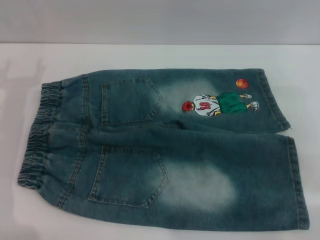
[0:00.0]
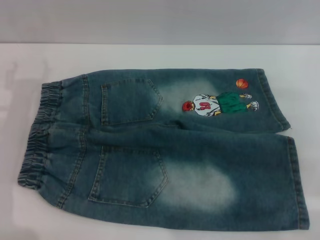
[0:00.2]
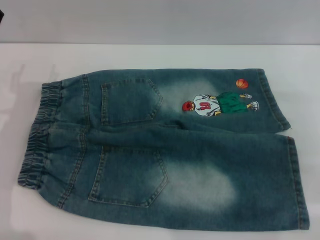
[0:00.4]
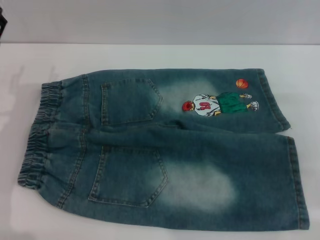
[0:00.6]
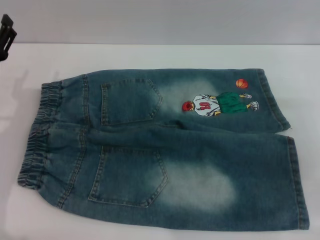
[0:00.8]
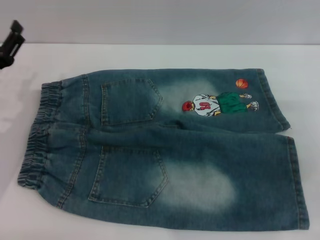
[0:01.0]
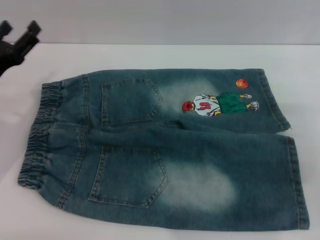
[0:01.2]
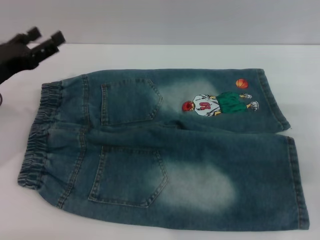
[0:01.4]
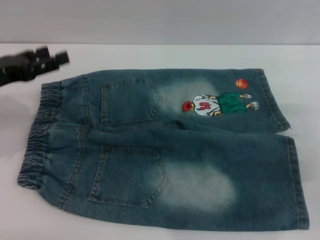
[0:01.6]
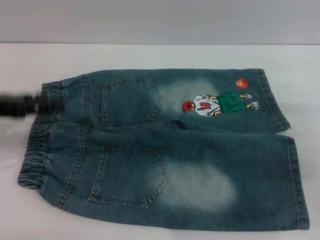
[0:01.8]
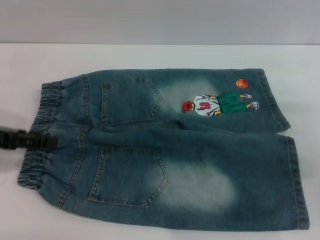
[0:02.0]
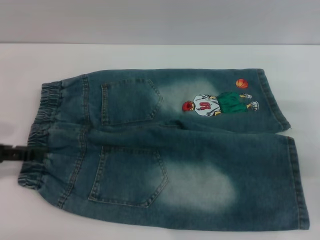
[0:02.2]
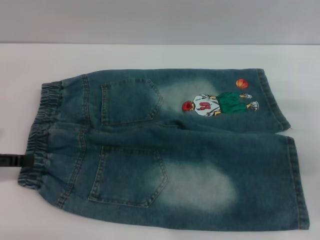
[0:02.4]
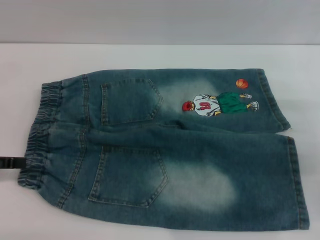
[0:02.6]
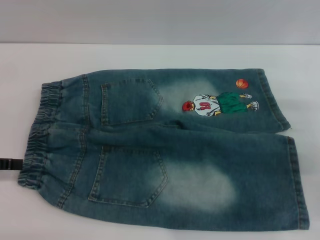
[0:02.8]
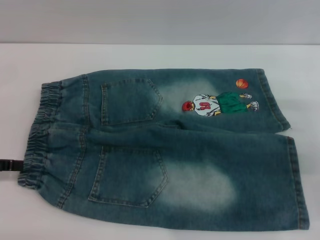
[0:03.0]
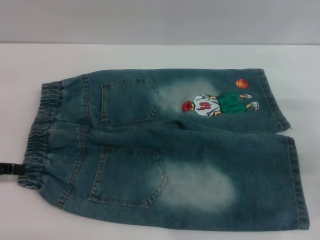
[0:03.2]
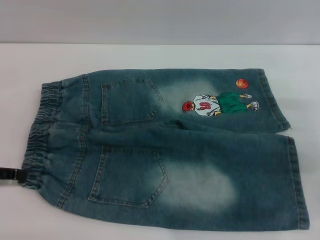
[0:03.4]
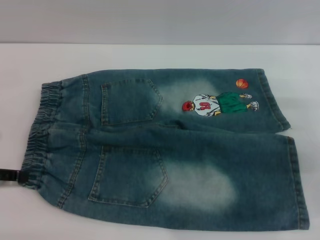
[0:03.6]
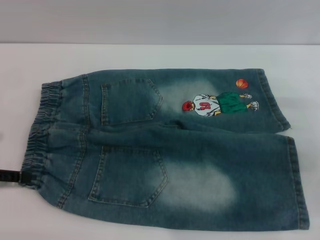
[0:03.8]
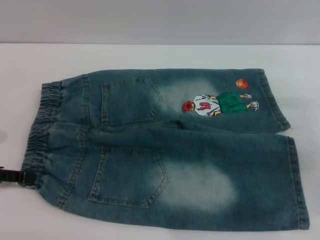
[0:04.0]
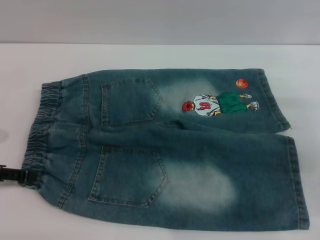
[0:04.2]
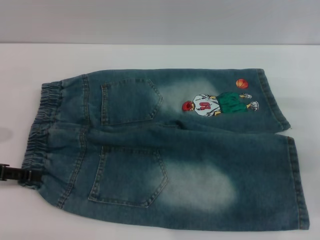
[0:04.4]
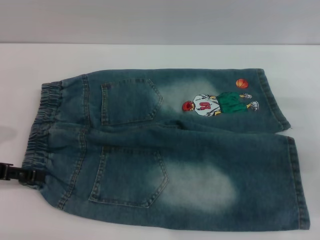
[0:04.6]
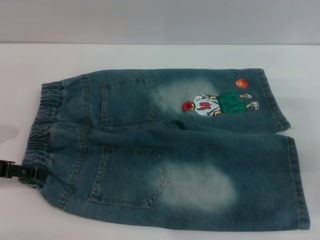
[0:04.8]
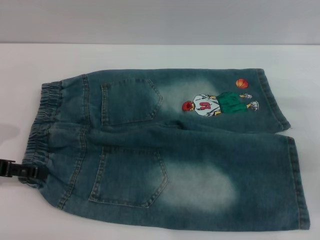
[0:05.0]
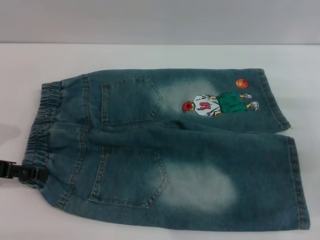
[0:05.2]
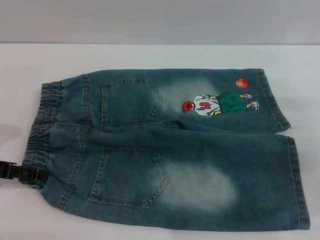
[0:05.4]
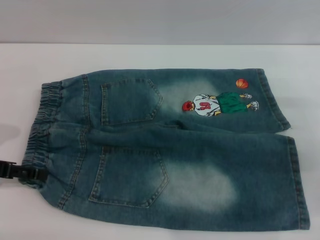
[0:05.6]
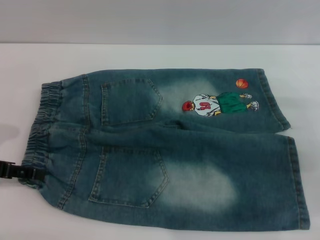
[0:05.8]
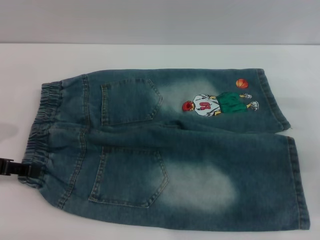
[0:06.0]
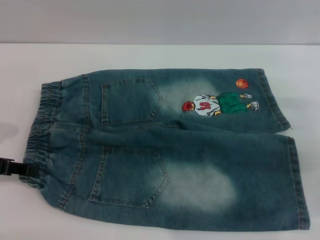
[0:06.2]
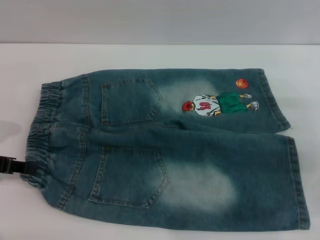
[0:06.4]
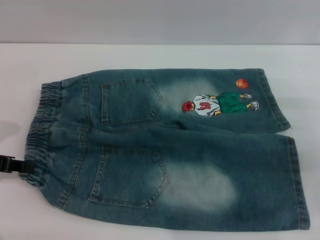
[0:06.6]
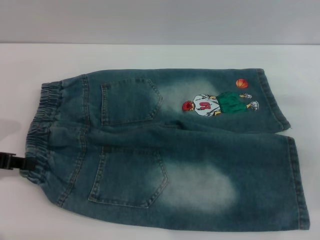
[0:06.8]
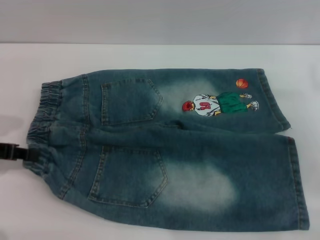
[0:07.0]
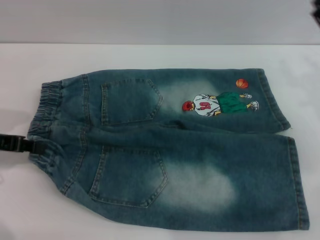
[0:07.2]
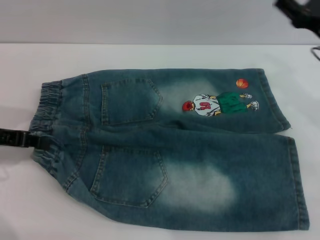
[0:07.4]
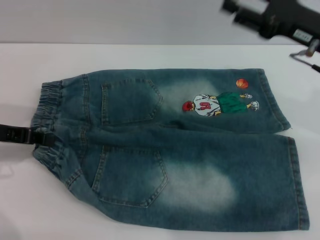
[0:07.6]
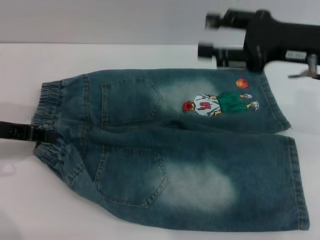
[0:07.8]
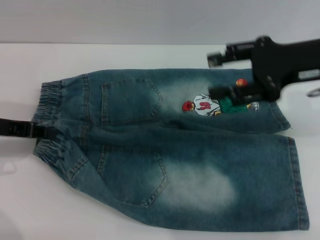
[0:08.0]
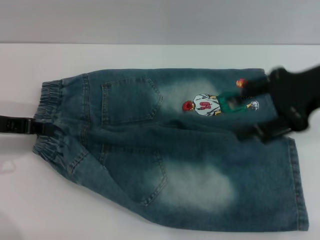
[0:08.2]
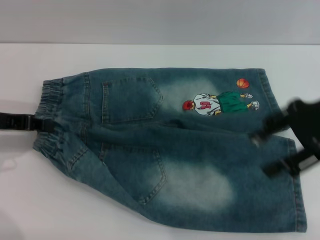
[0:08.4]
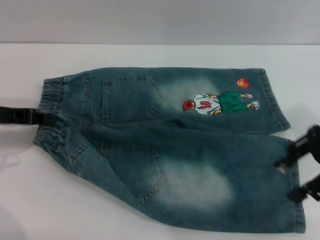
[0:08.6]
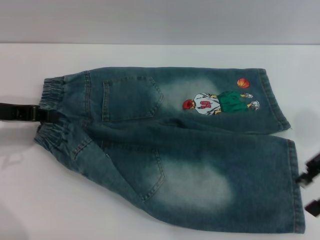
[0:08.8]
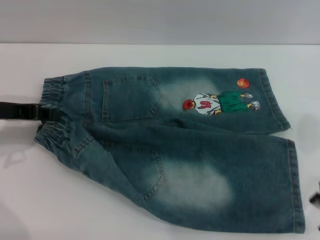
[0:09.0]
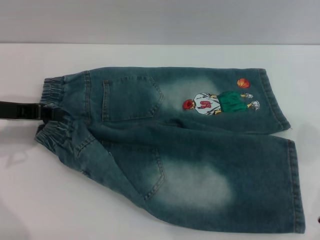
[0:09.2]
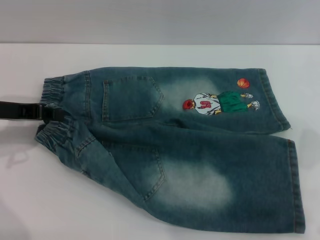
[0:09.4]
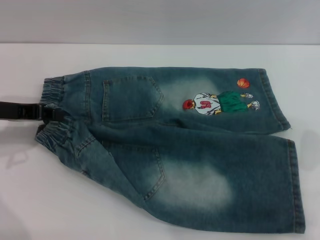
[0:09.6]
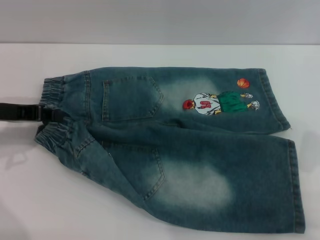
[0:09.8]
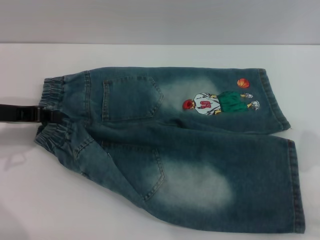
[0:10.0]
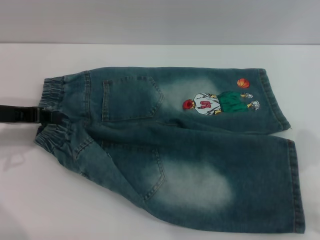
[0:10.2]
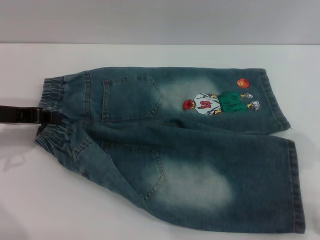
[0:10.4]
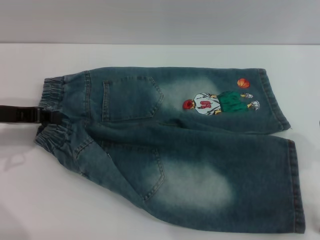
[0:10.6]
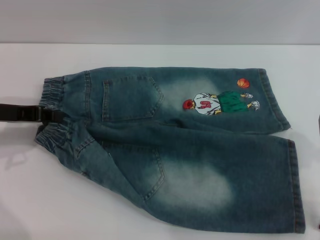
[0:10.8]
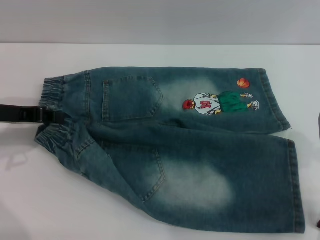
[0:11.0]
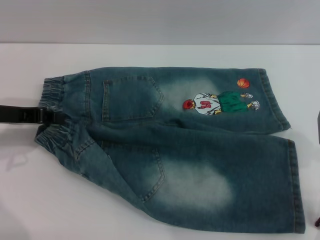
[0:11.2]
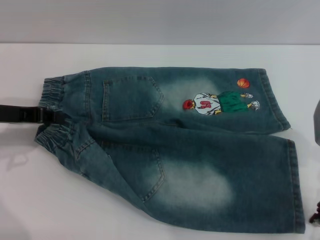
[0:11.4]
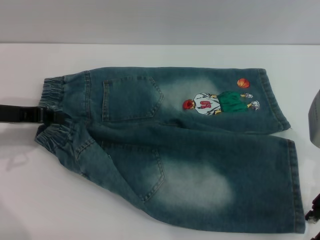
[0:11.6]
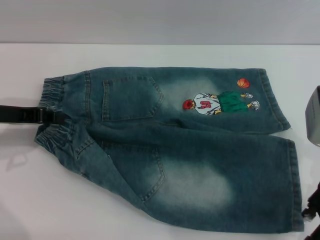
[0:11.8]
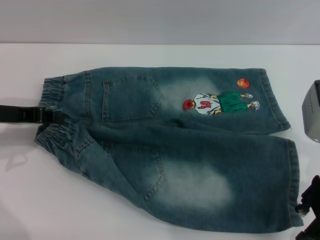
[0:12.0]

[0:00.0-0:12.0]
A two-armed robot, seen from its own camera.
0:01.6 to 0:03.0: The left gripper goes some 10 cm to the left and backward.
0:04.4 to 0:06.0: Neither gripper changes place.
0:06.0 to 0:07.6: The right gripper moves upward, to the left and forward, roughly 15 cm. The left gripper closes.
0:07.6 to 0:09.0: The right gripper moves backward, about 5 cm.
0:09.0 to 0:10.4: The right gripper shifts by roughly 5 cm.
0:10.4 to 0:12.0: The grippers move only a little.

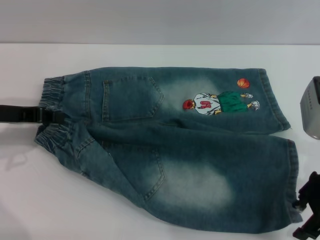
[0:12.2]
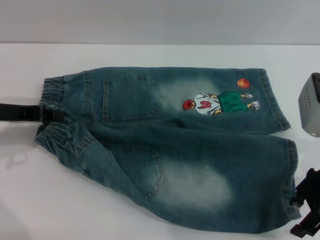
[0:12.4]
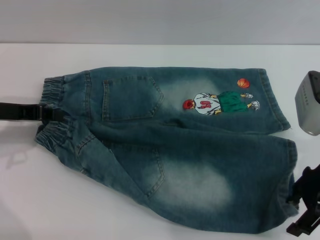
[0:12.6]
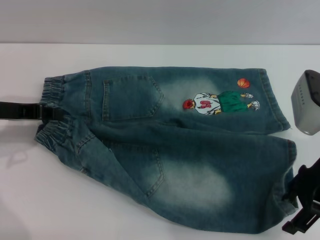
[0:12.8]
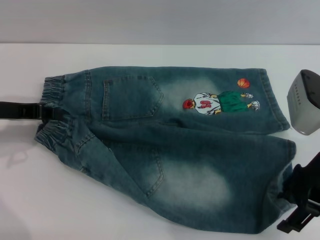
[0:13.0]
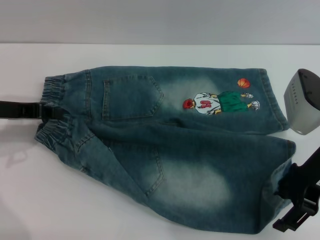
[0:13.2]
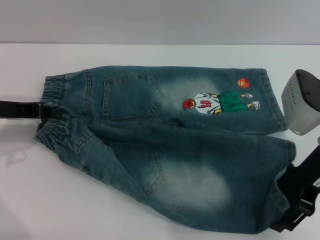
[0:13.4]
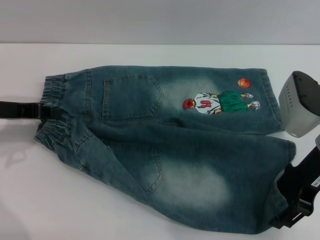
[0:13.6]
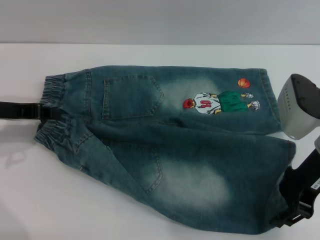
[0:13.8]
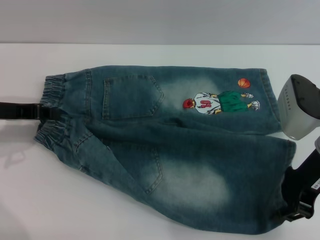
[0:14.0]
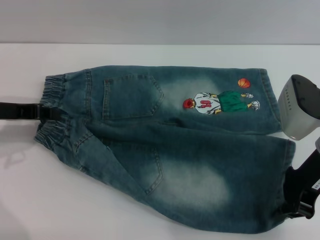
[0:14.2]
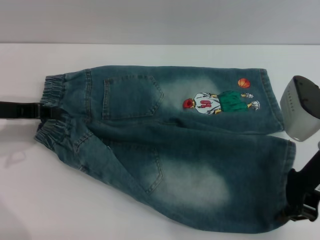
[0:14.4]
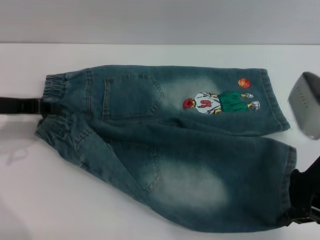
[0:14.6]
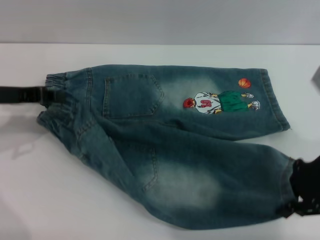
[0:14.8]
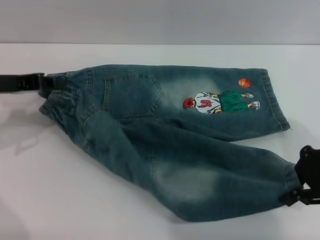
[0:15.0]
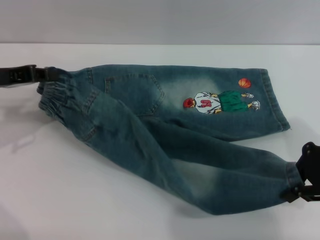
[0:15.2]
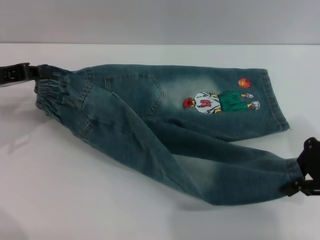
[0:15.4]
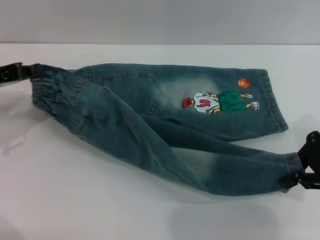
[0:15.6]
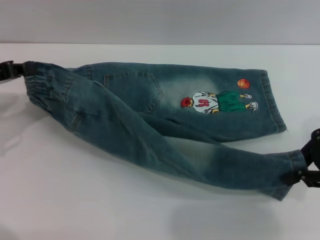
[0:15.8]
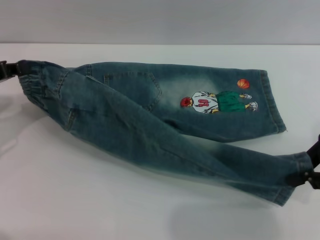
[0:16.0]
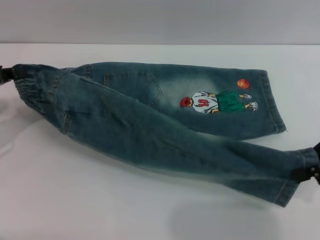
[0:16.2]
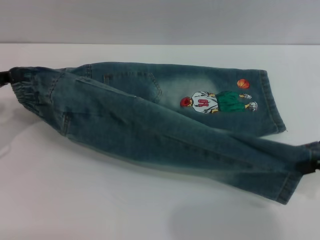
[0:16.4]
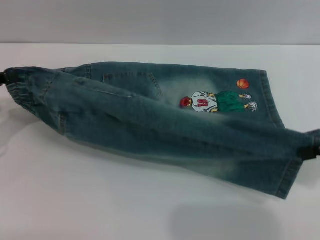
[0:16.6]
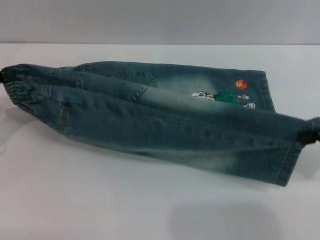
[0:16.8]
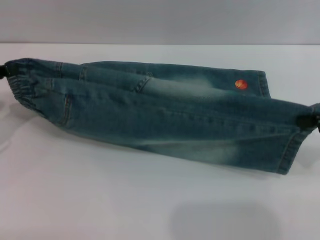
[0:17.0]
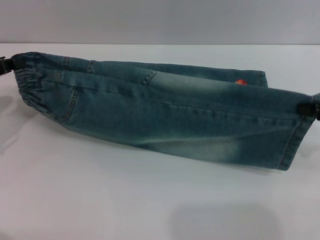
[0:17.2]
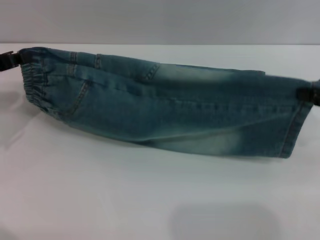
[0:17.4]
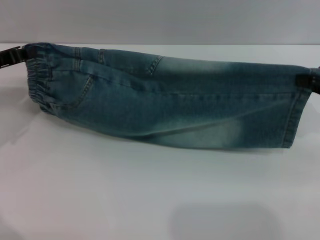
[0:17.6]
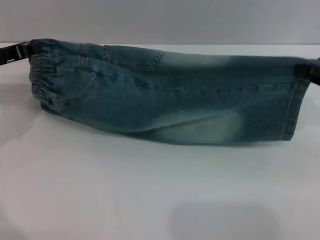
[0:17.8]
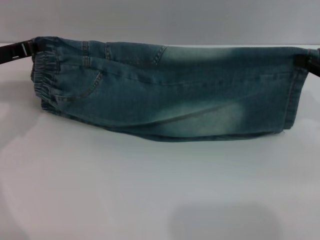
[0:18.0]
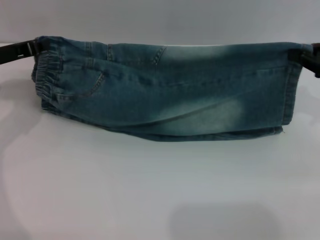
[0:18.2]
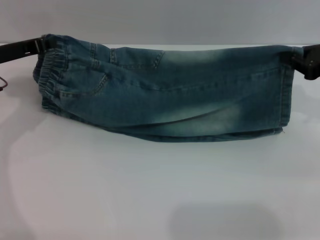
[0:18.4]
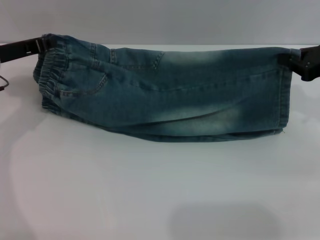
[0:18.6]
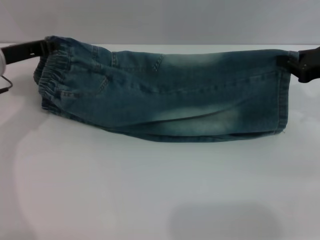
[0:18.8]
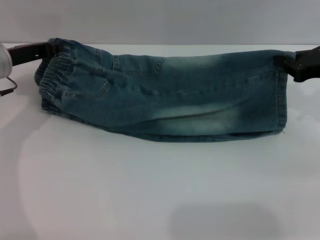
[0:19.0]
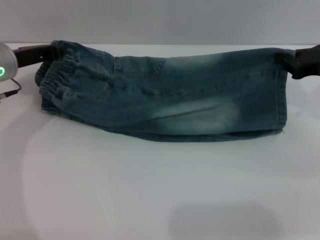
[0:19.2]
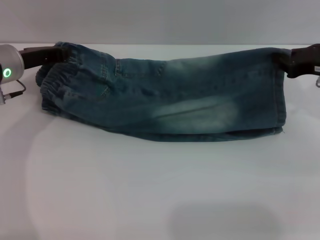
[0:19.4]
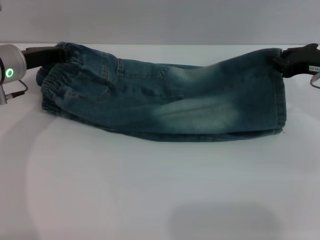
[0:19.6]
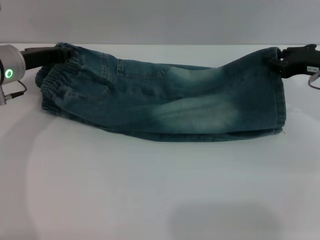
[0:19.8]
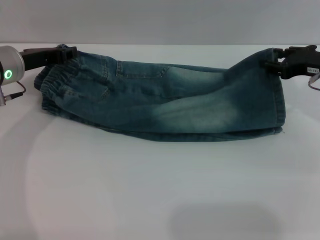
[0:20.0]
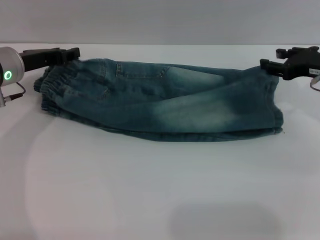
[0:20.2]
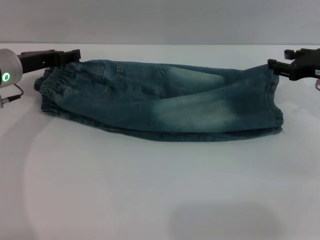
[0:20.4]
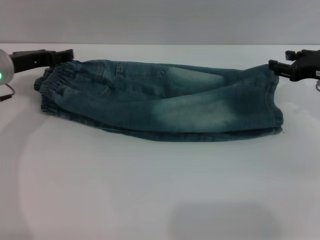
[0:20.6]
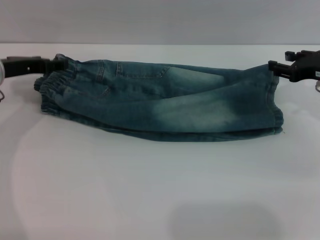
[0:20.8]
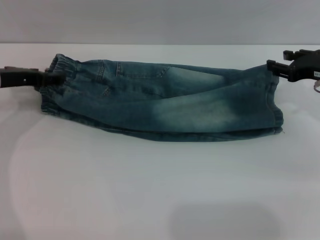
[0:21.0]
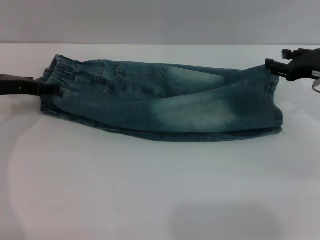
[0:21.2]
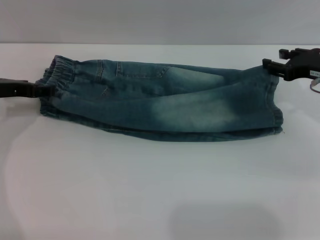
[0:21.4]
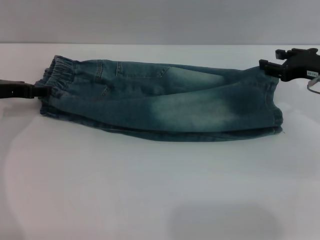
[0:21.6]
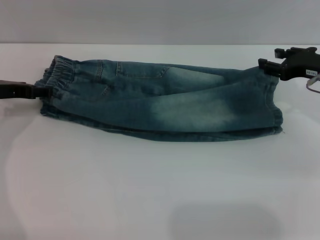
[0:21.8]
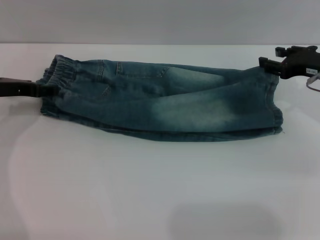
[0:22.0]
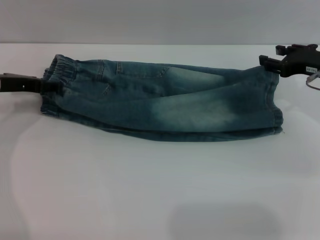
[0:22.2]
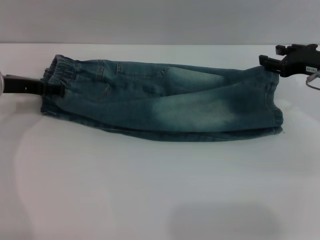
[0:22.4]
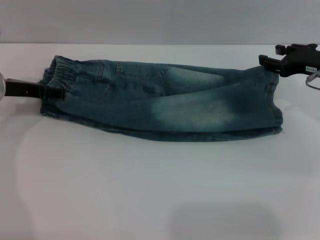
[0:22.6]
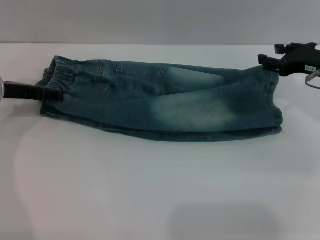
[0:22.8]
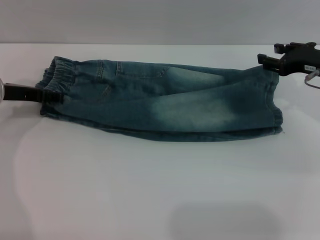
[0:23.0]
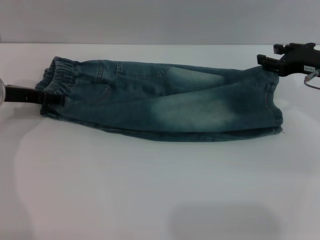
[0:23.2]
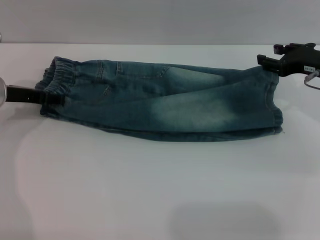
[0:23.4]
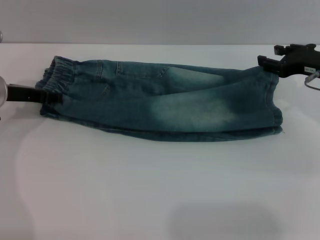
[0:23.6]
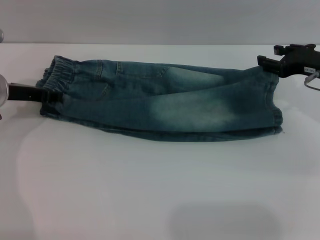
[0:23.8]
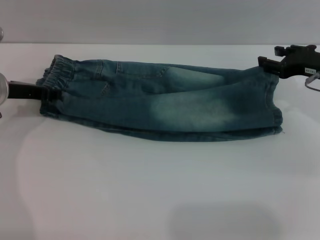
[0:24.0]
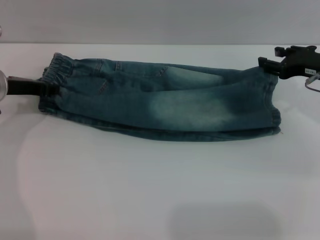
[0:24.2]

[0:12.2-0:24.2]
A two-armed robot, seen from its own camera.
Step, 0:12.2 to 0:20.6: Fold the bottom of the pants upward with both grippers.
0:12.2 to 0:13.8: The grippers stay close to where they were, moving slightly.
0:13.8 to 0:15.2: The right gripper travels upward by some 5 cm, and closes.
0:15.2 to 0:16.6: The right gripper travels to the right by some 5 cm. The left gripper shifts by roughly 5 cm.
0:16.6 to 0:18.2: The right gripper moves forward, approximately 10 cm; the left gripper moves forward and to the right, roughly 10 cm.
0:18.2 to 0:19.8: The right gripper ends up about 5 cm from where it was; the left gripper changes place by some 5 cm.
0:19.8 to 0:21.2: The right gripper opens its fingers, while the left gripper opens its fingers.
0:21.2 to 0:22.6: There are only small adjustments of the grippers.
0:22.6 to 0:24.2: The left gripper closes.
